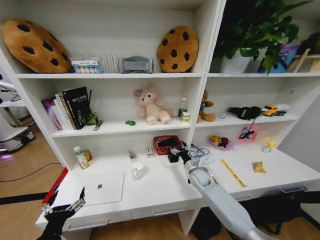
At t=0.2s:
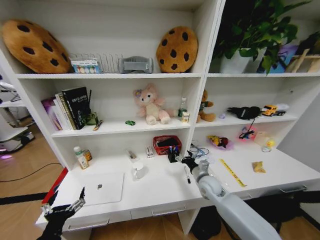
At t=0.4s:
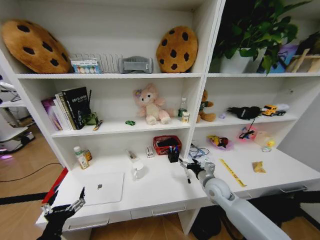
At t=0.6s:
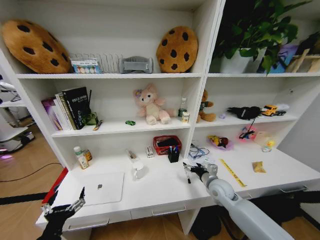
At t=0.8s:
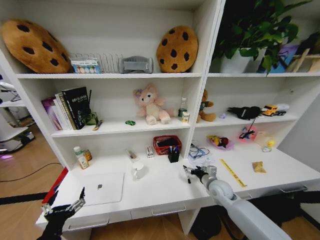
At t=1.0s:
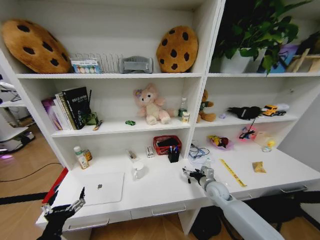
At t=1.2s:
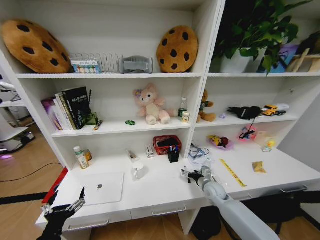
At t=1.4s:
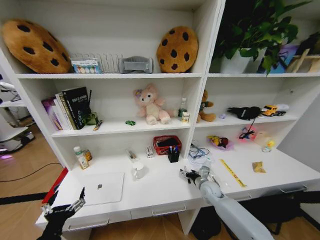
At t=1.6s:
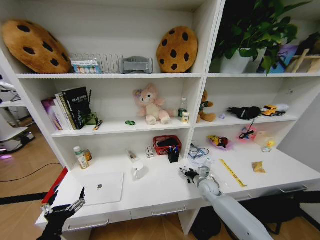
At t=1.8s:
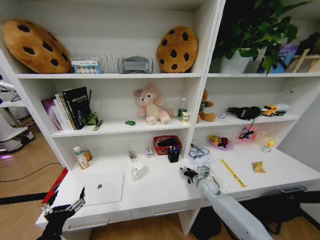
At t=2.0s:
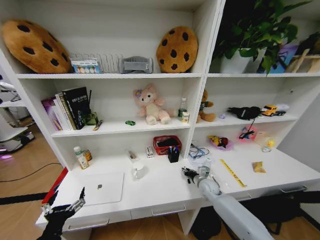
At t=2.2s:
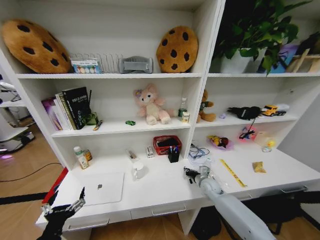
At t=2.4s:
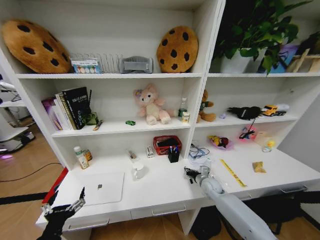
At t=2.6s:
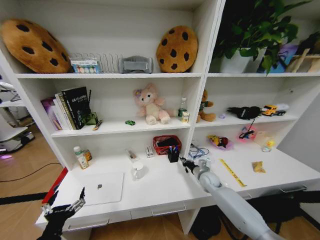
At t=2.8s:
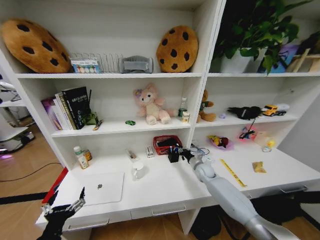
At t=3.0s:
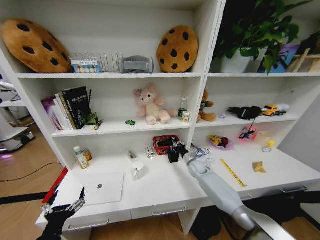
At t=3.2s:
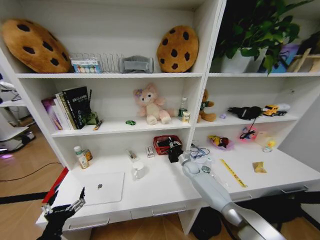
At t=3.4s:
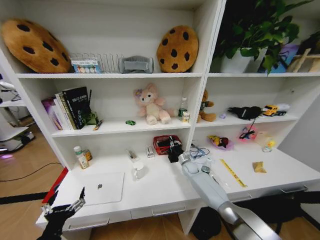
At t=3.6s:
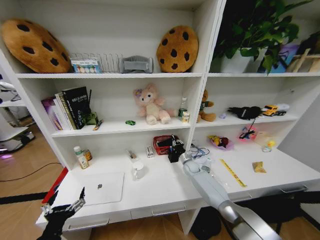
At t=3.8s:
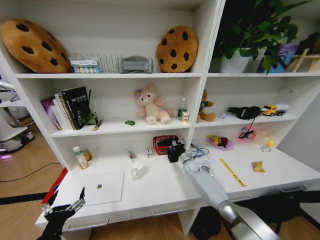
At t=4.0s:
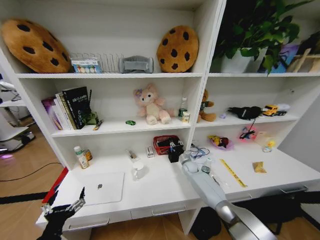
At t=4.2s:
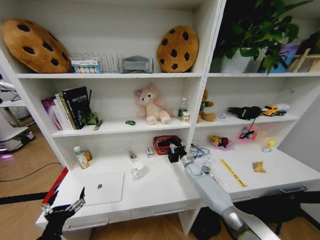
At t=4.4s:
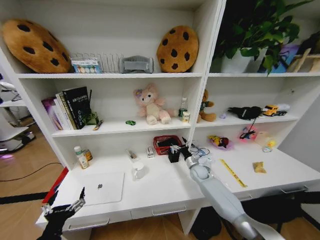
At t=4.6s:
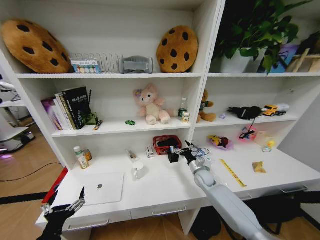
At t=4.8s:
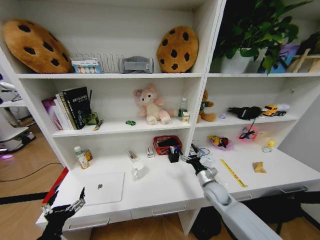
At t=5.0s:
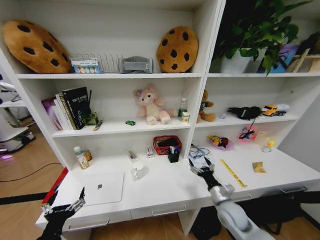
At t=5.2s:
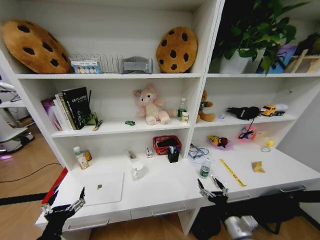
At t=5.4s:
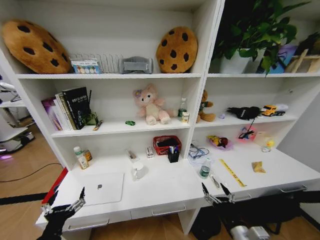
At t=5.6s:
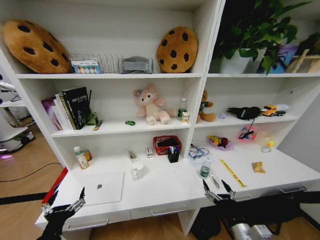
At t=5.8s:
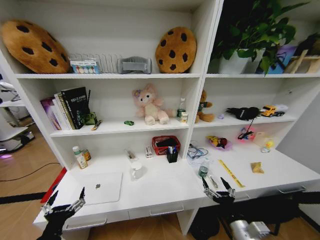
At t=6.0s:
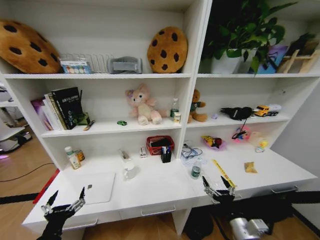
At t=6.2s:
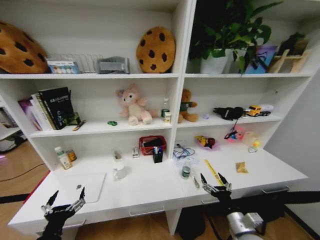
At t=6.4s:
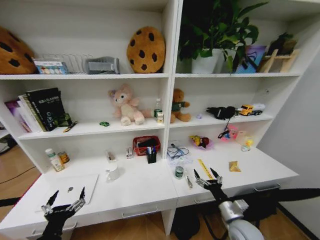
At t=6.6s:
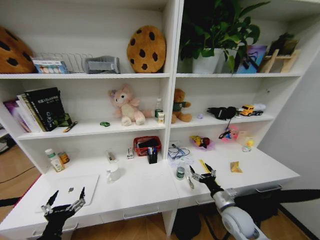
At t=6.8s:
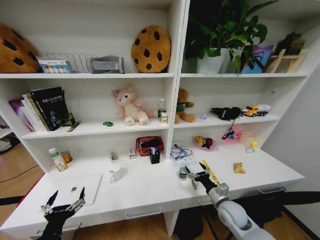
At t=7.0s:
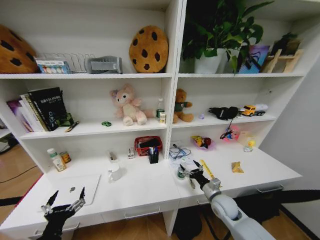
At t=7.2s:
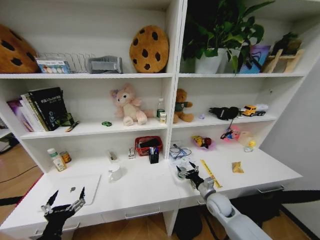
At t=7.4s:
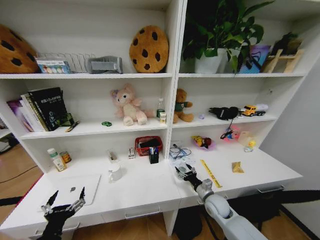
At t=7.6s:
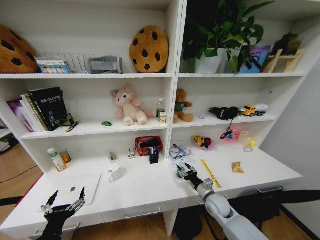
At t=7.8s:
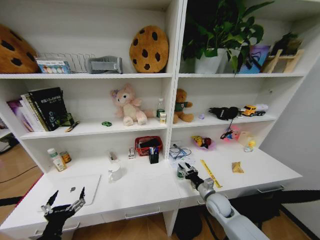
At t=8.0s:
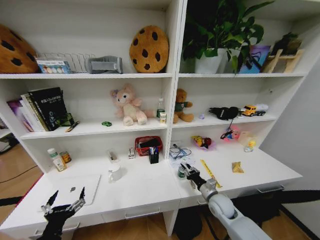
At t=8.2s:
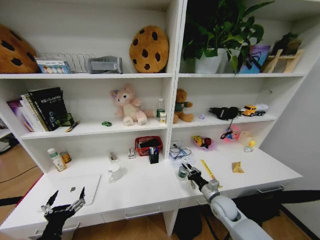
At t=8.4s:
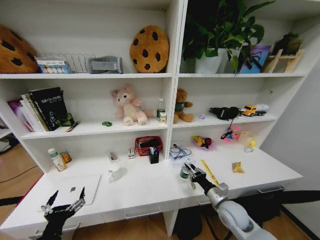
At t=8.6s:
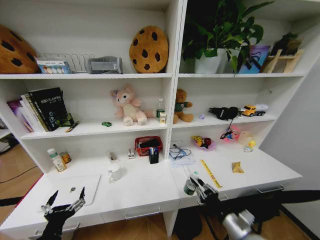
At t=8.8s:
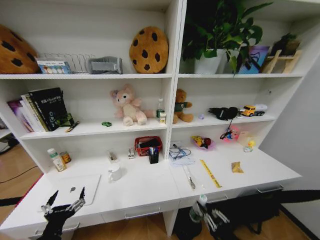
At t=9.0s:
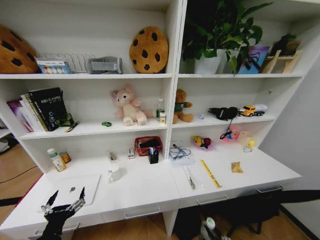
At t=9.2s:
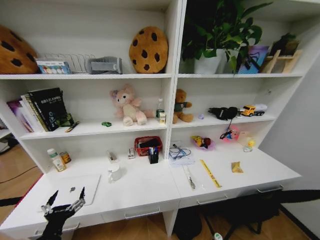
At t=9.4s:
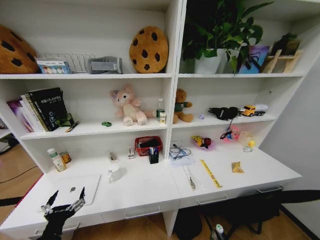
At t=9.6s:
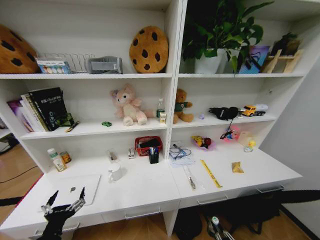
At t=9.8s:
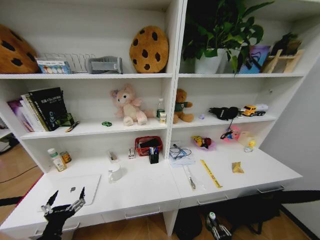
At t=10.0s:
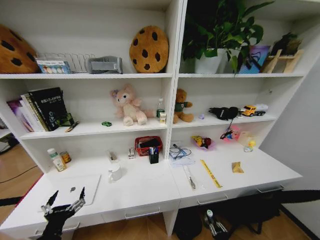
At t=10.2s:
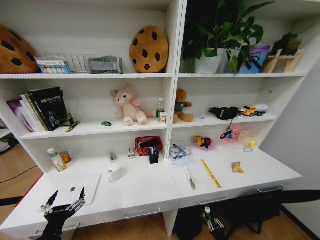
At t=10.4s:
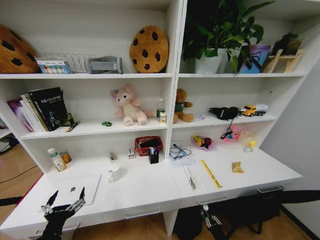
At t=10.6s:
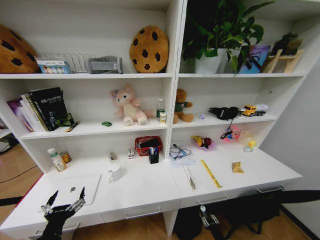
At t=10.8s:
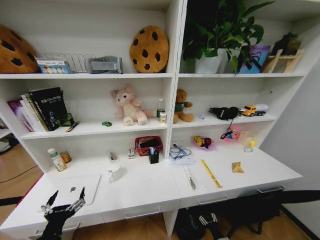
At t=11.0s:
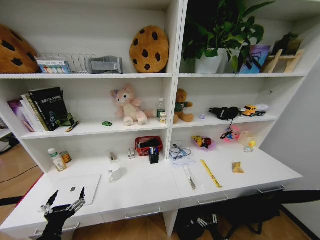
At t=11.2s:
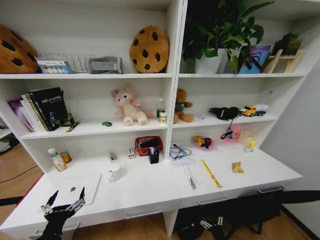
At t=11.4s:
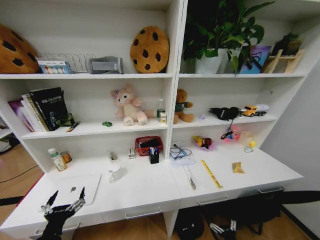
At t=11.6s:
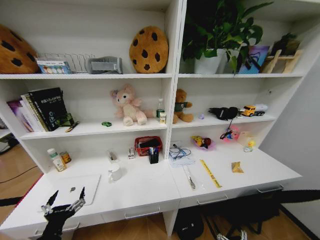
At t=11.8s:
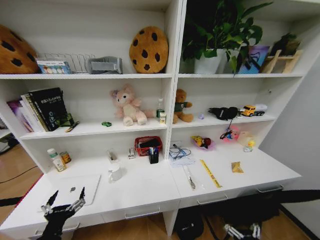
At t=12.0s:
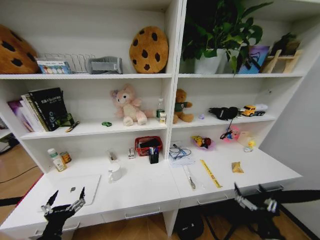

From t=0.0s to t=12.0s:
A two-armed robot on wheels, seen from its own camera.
Task of the whole recording: Organize the objects on the table.
From t=0.0s to t=1.6s: The right gripper travels upward and back again, about 5 cm each way.
From t=1.6s to t=3.0s: The right gripper is displaced forward by about 10 cm, and closes up.
From t=3.0s to t=4.4s: The right gripper opens.
From t=4.4s to t=6.0s: The right gripper travels backward by approximately 35 cm.
From t=6.0s to t=7.6s: The right gripper moves forward, roughly 15 cm.
From t=7.6s to t=9.0s: The right gripper travels backward by roughly 30 cm, and closes.
From t=9.0s to t=10.4s: The right gripper shifts some 30 cm downward.
From t=10.4s to t=12.0s: The right gripper heads upward, covering roughly 25 cm, and opens.

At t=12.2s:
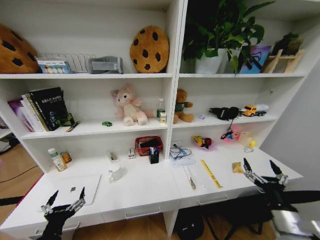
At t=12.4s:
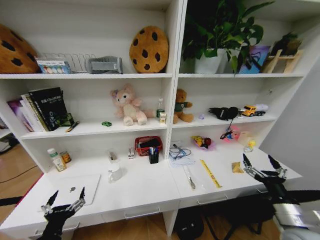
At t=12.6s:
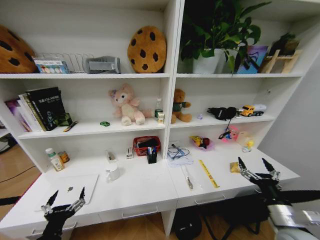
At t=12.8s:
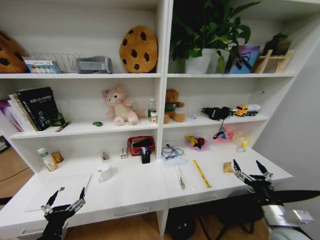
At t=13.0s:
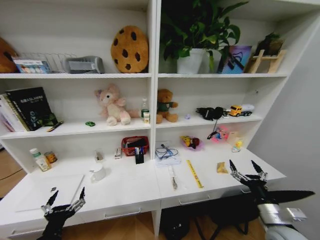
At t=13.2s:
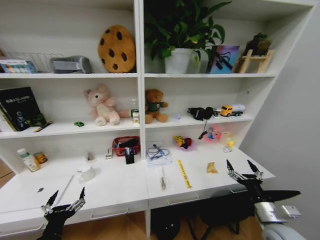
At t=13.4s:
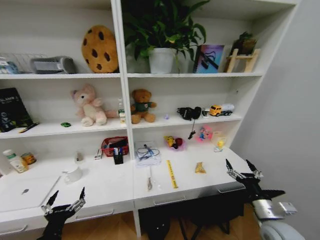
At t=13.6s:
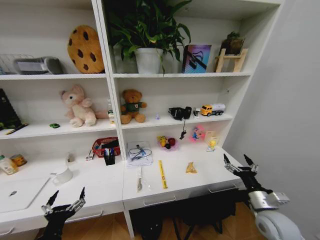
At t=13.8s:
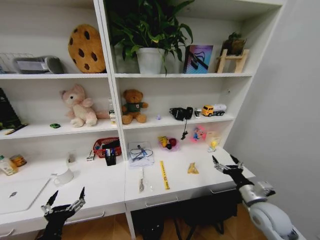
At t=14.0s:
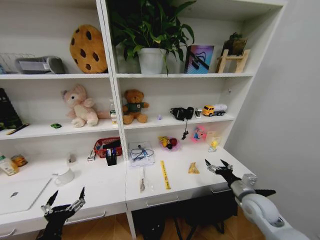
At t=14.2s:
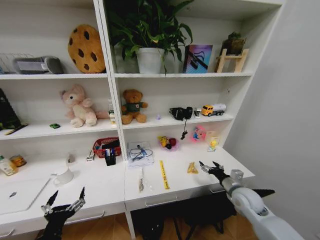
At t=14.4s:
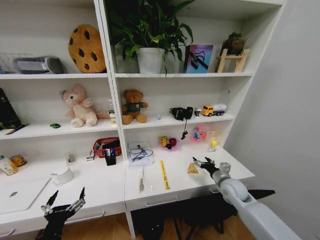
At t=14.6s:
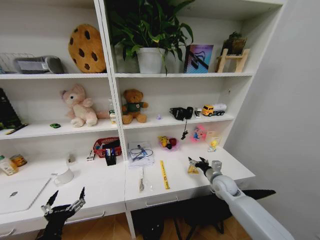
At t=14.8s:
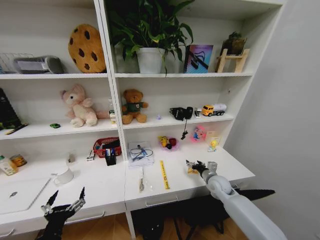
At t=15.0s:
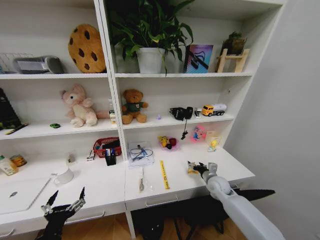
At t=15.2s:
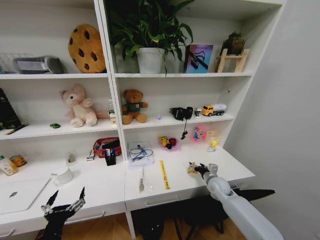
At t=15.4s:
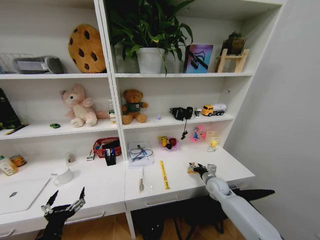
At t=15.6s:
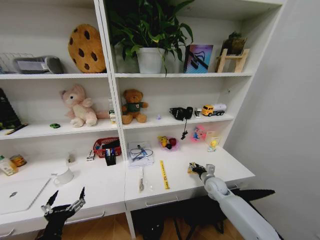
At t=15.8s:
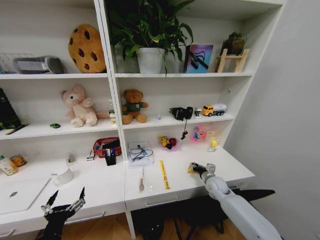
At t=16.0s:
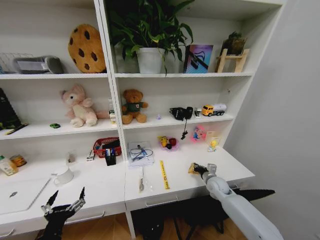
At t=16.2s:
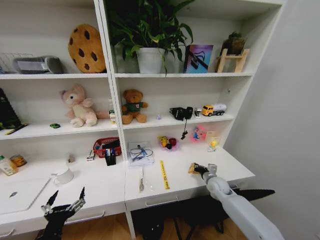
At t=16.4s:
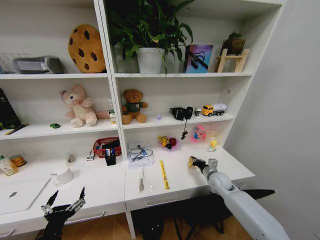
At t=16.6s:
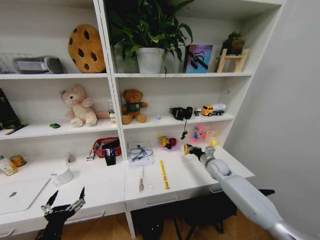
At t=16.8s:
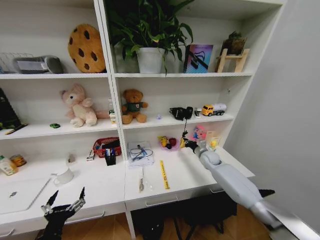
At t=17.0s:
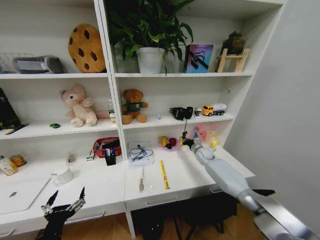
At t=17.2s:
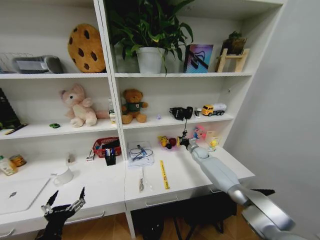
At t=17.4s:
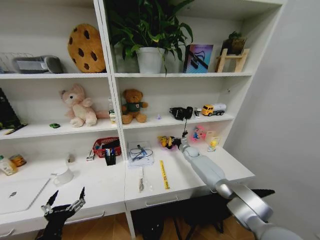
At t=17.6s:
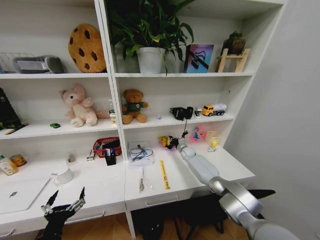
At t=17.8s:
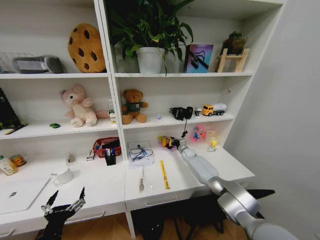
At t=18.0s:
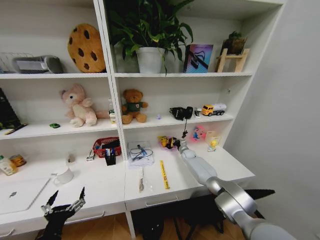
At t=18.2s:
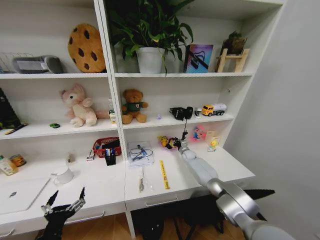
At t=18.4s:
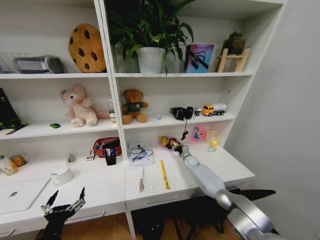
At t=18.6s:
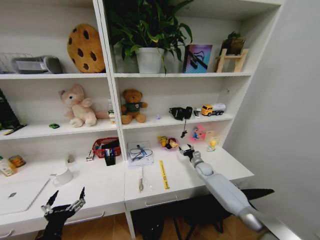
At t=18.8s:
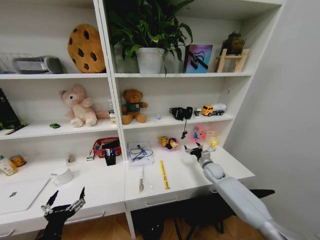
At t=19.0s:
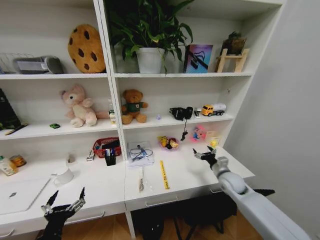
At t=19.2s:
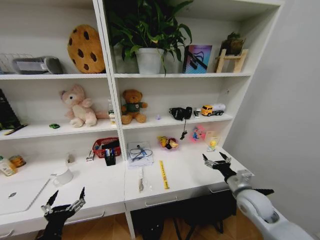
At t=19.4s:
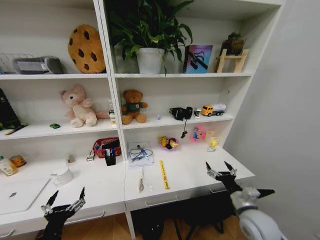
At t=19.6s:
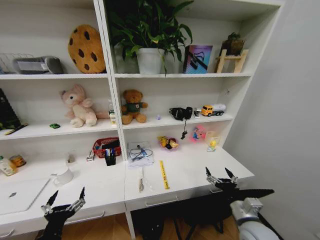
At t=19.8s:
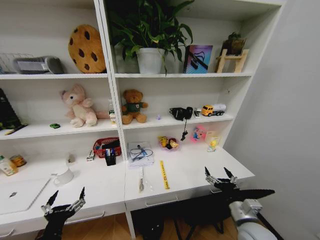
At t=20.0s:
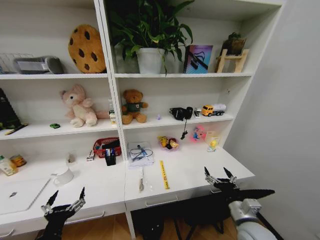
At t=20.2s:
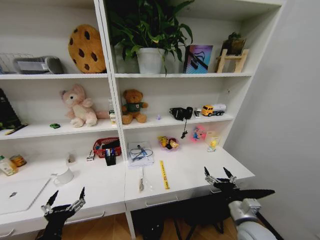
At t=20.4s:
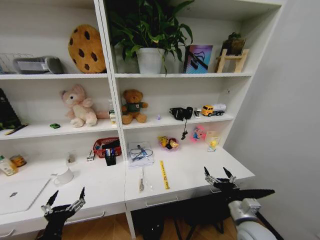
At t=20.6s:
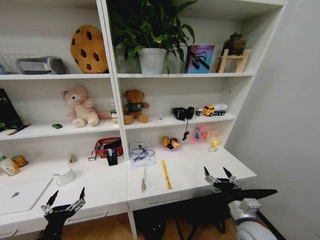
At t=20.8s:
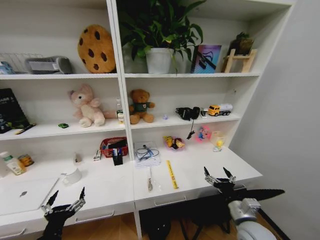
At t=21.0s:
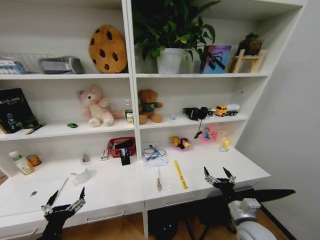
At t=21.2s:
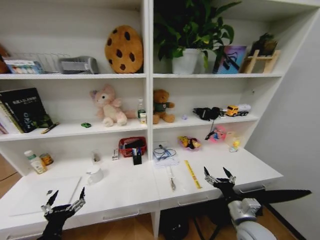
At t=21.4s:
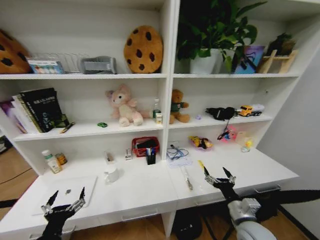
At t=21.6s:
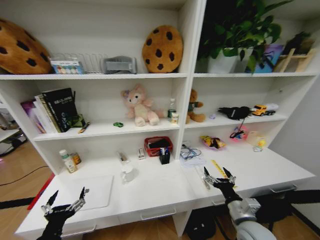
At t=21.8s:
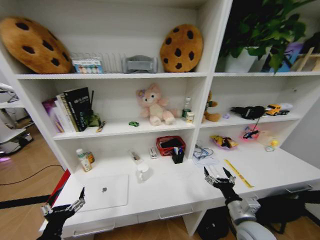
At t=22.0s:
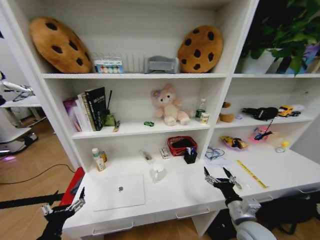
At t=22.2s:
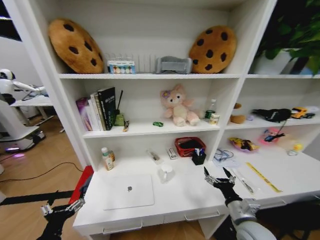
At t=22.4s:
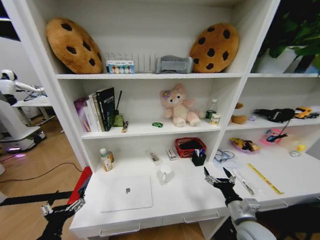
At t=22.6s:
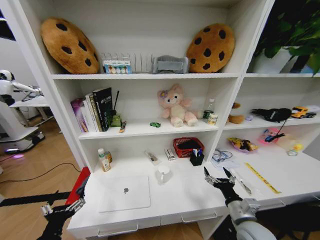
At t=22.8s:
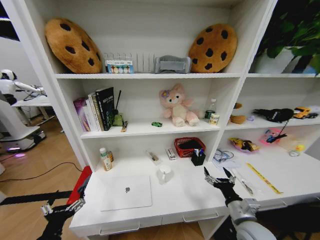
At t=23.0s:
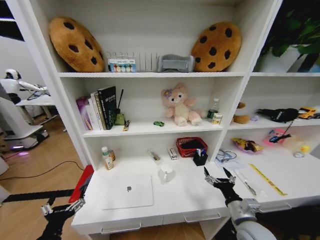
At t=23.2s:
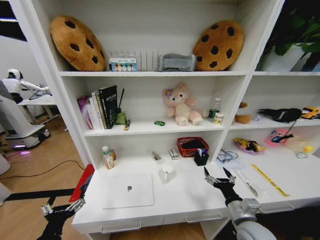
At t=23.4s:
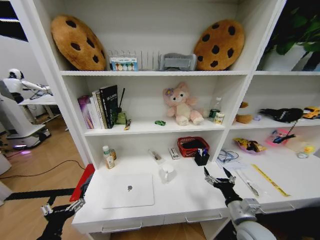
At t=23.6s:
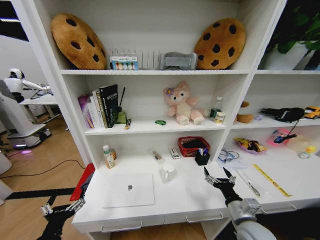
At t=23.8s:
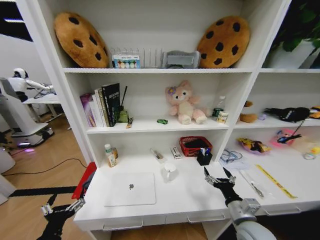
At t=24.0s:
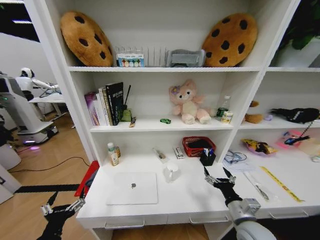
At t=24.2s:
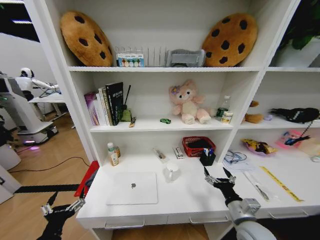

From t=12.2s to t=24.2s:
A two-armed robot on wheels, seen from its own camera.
Task of the whole recording: Organize the objects on the table.
From t=12.2s to t=13.8s: The right gripper shifts roughly 10 cm forward.
From t=13.8s to t=15.2s: The right gripper goes roughly 20 cm forward, downward and to the left.
From t=15.2s to t=16.6s: The right gripper travels upward by about 5 cm, and closes.
From t=16.6s to t=18.2s: The right gripper shifts some 20 cm forward, to the left and downward.
From t=18.2s to t=19.8s: The right gripper moves backward, roughly 40 cm, and opens up.
